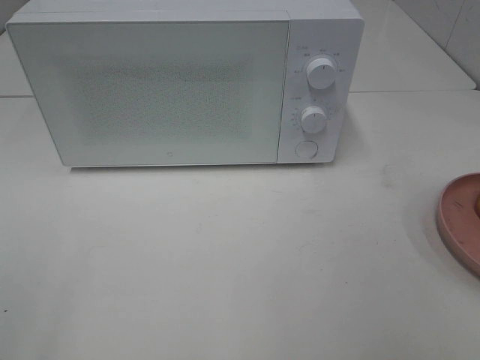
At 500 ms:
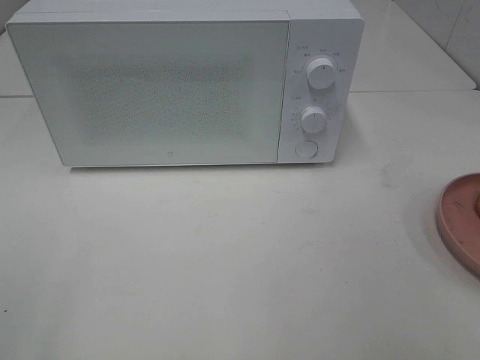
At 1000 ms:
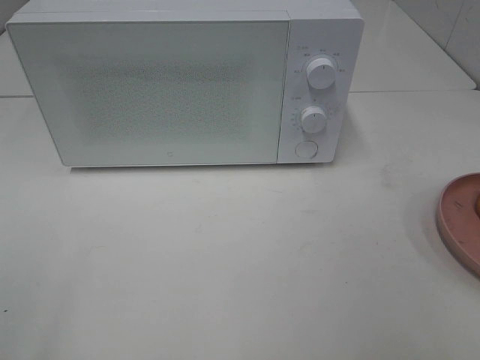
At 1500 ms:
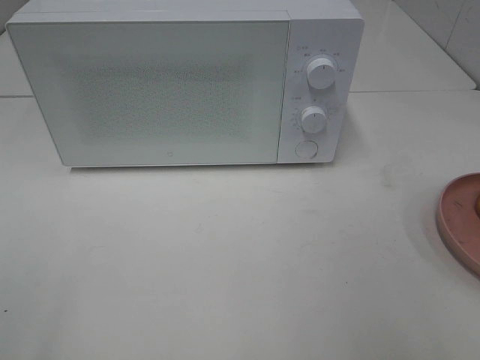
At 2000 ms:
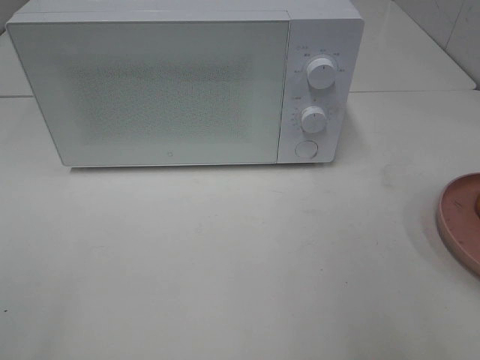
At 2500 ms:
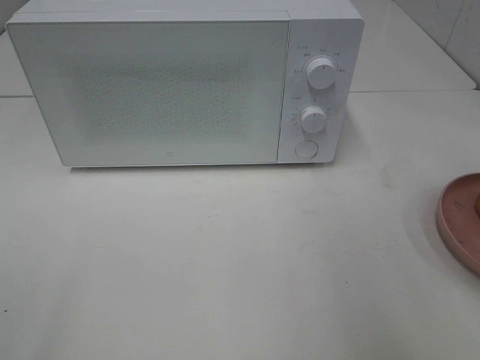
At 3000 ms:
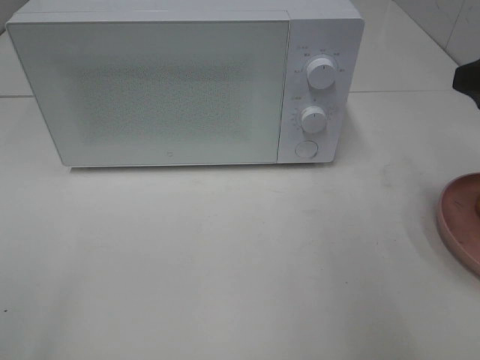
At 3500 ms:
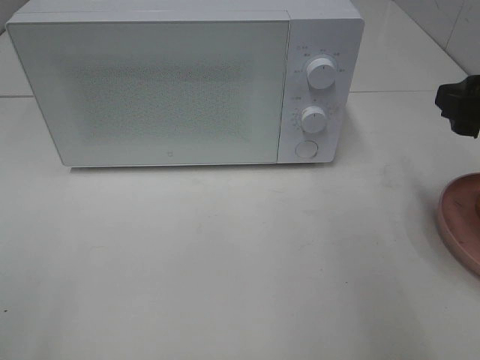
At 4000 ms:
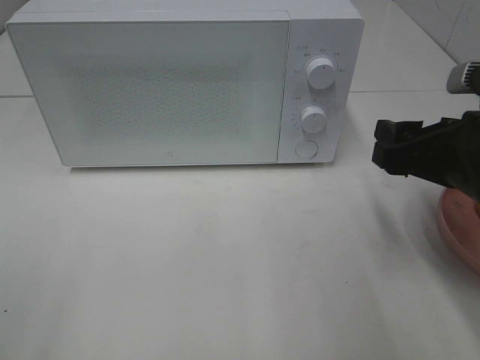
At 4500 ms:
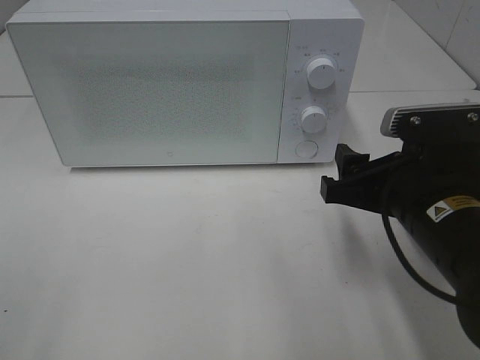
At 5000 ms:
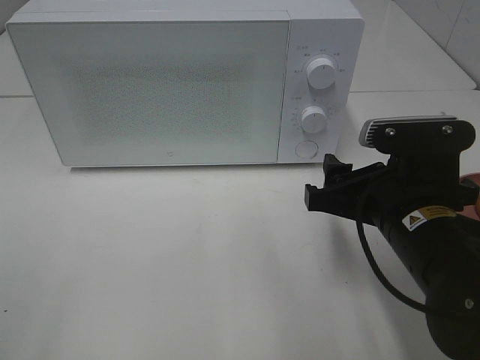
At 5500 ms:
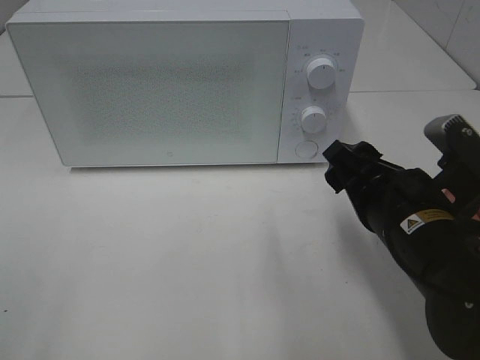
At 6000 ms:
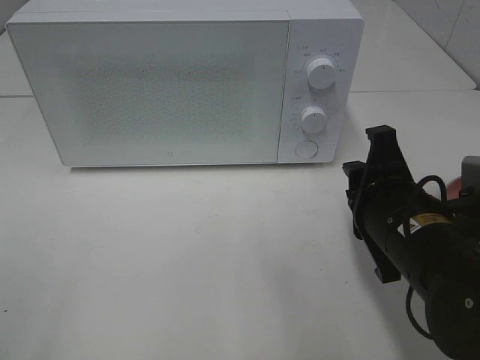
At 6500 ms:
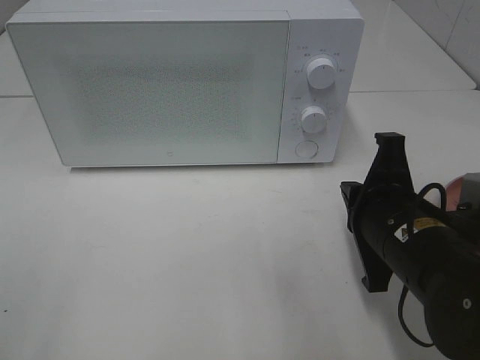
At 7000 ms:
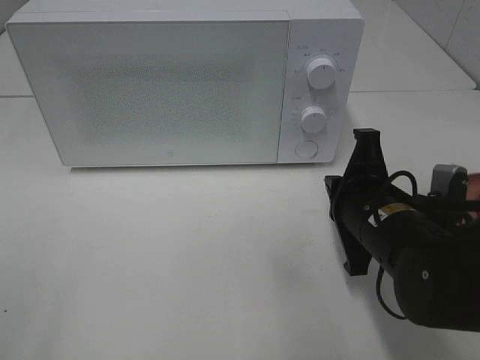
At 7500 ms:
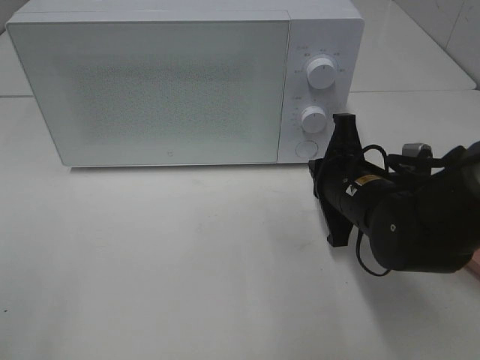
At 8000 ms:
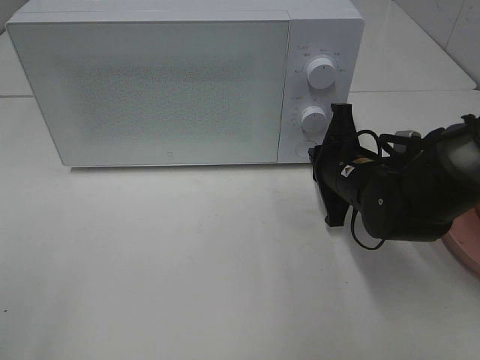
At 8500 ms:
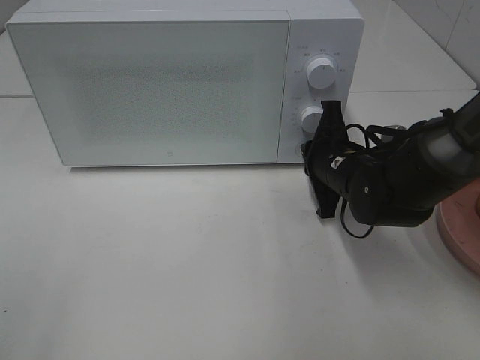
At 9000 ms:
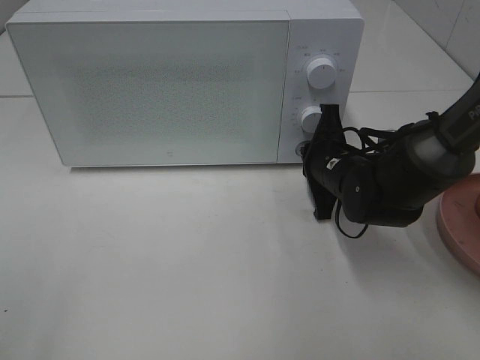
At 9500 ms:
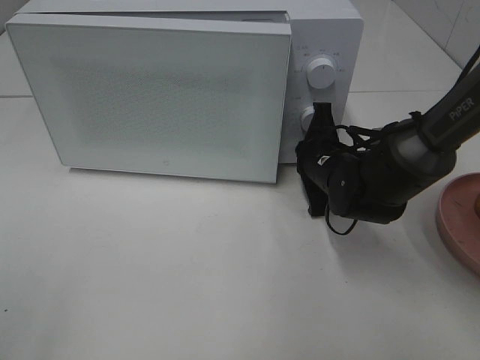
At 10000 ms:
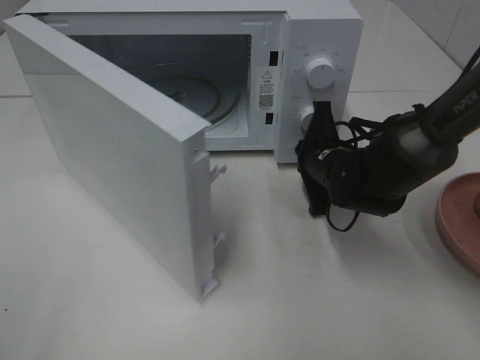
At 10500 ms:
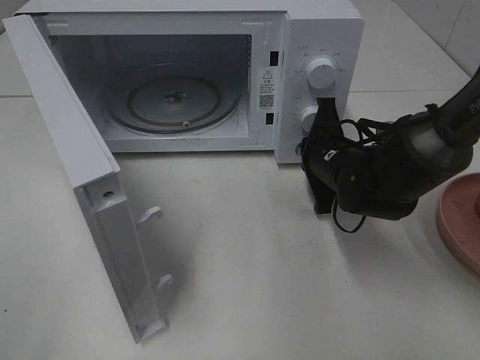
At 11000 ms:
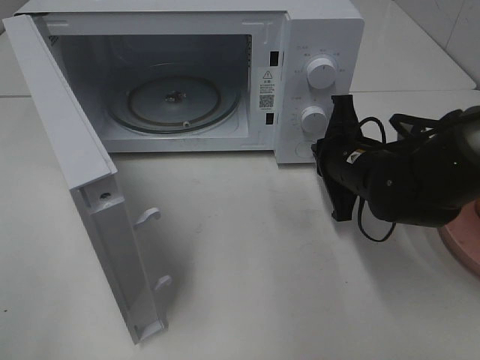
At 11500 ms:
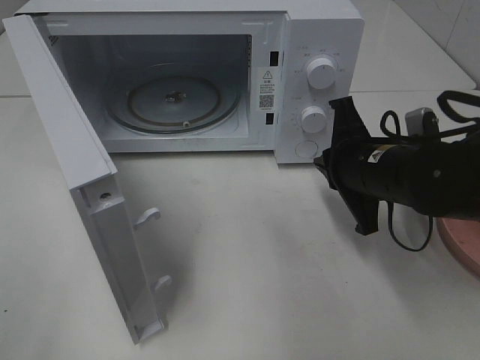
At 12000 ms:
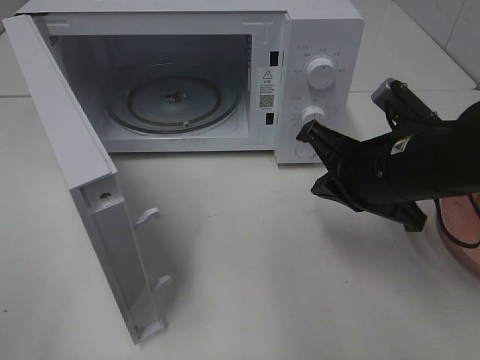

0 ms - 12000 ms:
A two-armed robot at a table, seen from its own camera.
Task of the whole recording: Heat the burger.
Step, 0 ms - 11000 ms: Right hand: press the switch.
2000 ms - 4000 ms: The right gripper is displaced downward, forward and to the left by approximately 15 cm.
4000 ms - 6000 ms: The right gripper travels to the left by roughly 5 cm, and closes up.
6000 ms - 8000 ms: The right gripper moves forward, approximately 10 cm, and closes its fingers.
8000 ms - 10000 ms: The right gripper changes place by approximately 5 cm.
10000 ms - 12000 ms: The right gripper is displaced backward and upward by some 15 cm.

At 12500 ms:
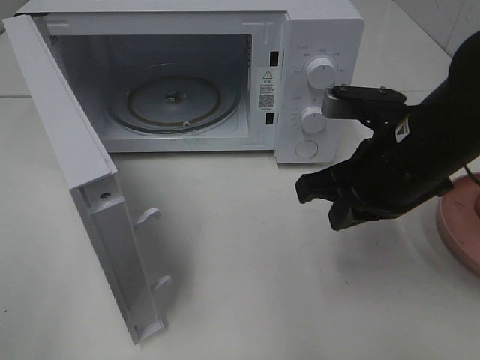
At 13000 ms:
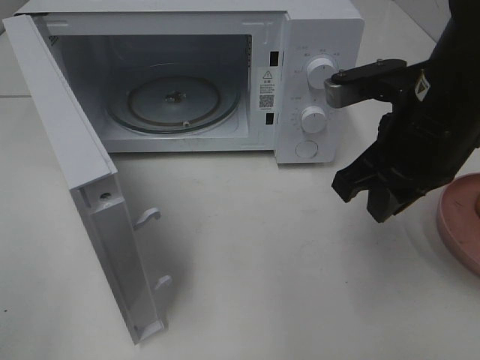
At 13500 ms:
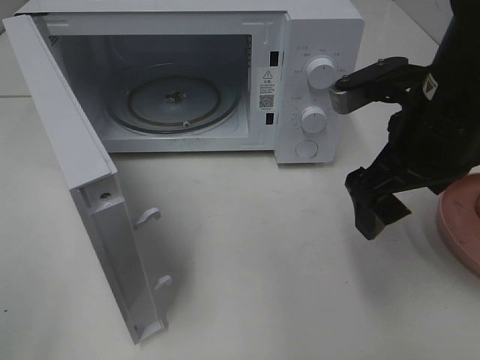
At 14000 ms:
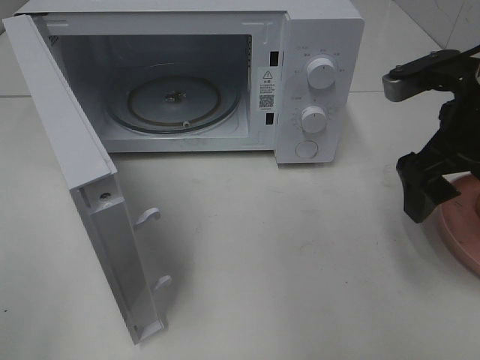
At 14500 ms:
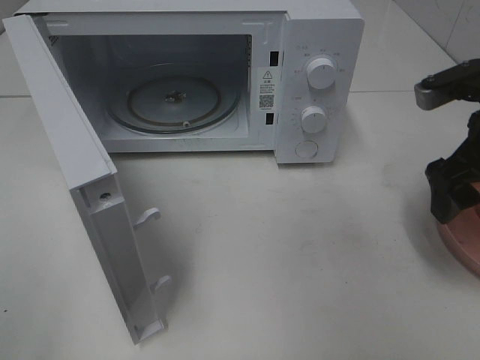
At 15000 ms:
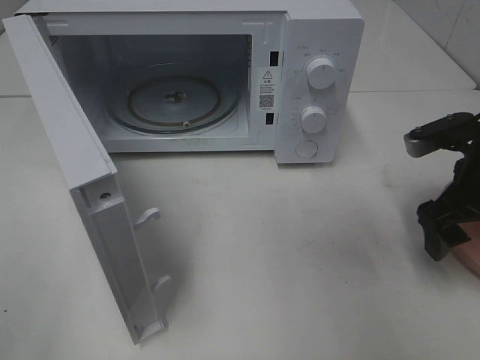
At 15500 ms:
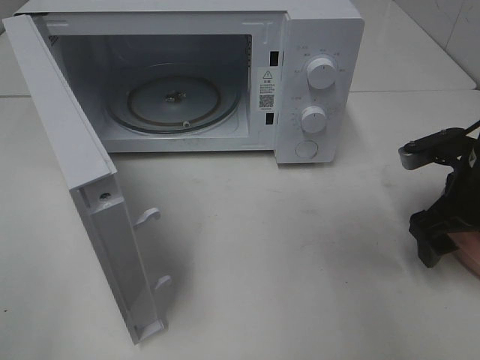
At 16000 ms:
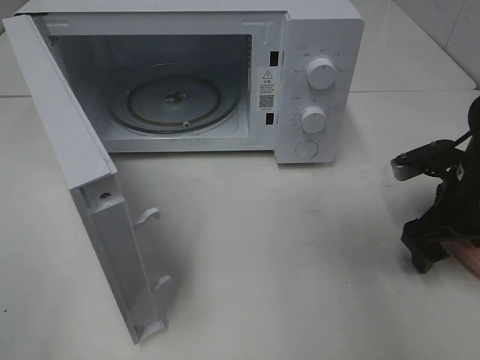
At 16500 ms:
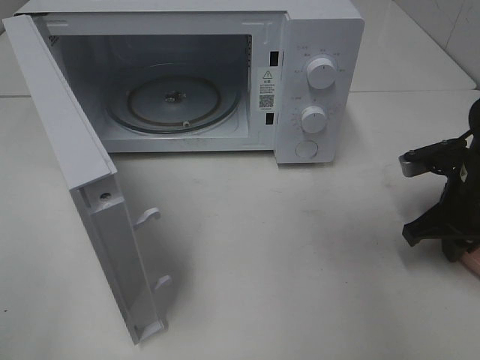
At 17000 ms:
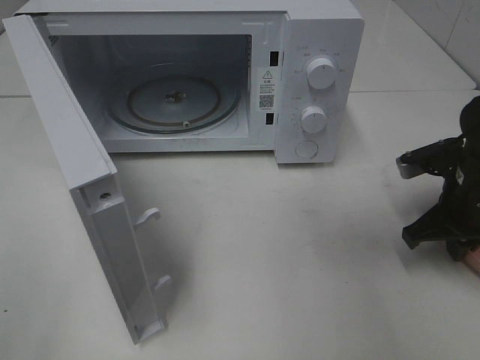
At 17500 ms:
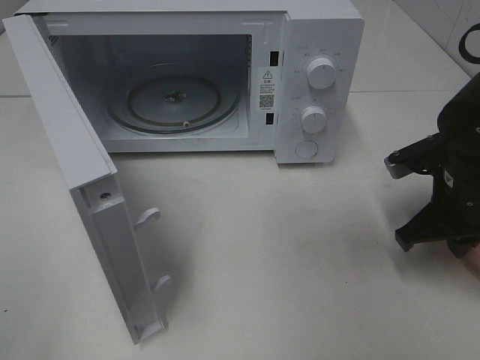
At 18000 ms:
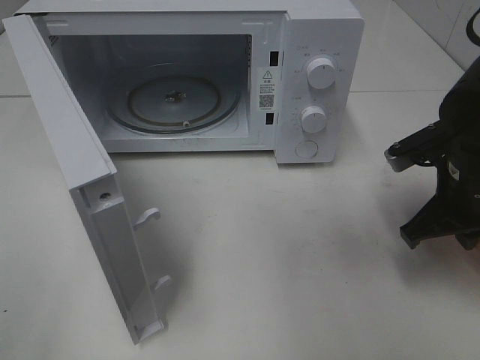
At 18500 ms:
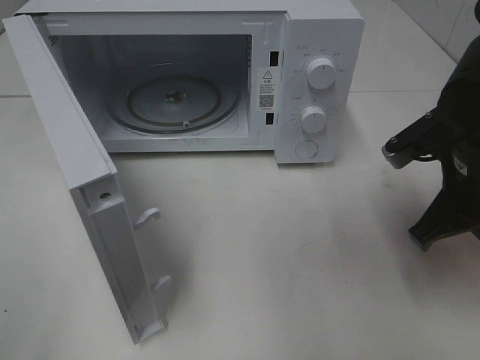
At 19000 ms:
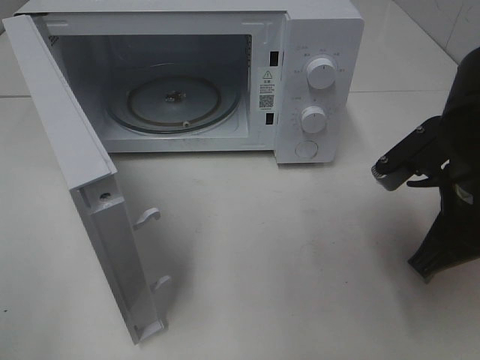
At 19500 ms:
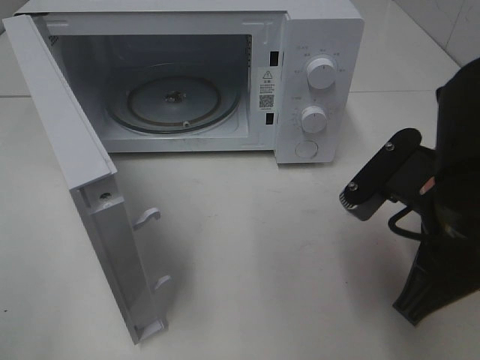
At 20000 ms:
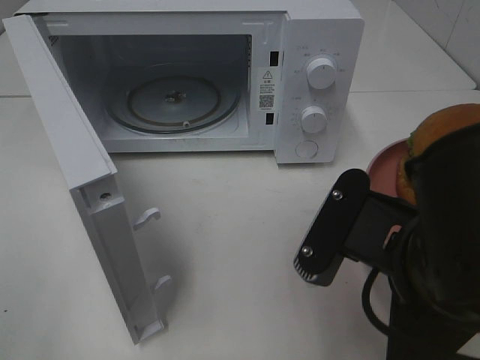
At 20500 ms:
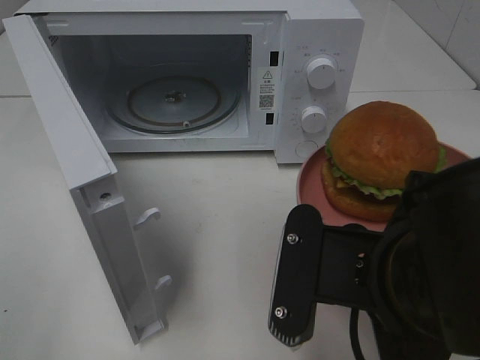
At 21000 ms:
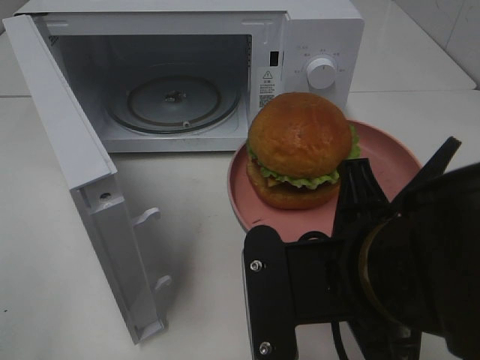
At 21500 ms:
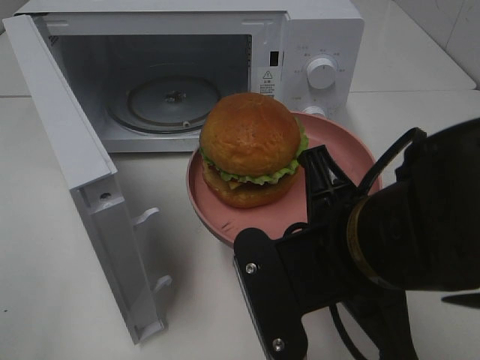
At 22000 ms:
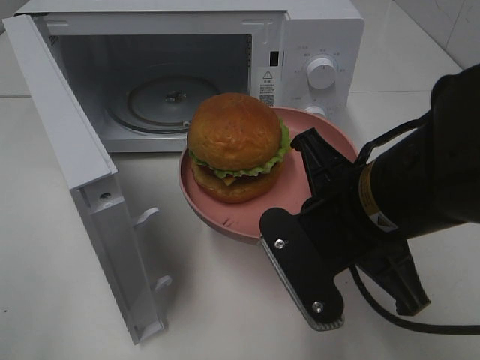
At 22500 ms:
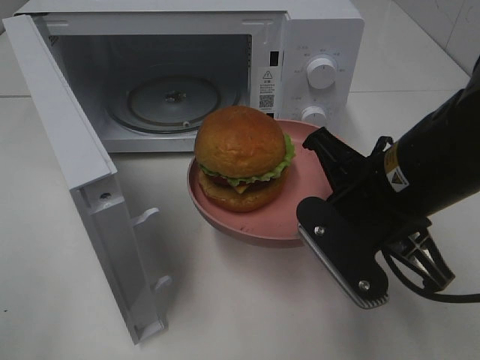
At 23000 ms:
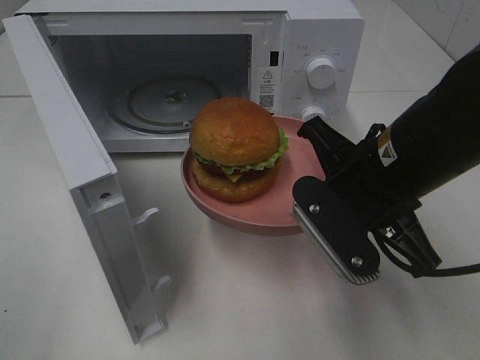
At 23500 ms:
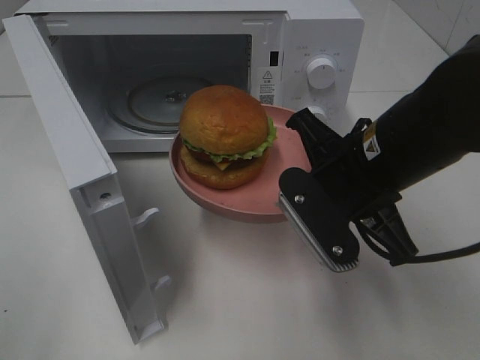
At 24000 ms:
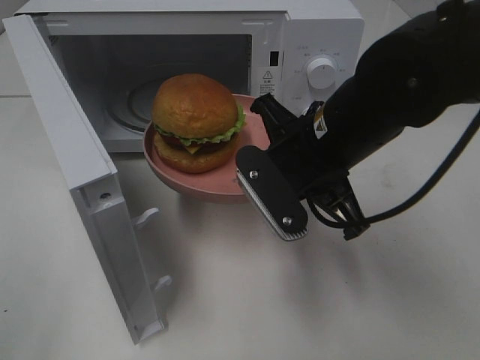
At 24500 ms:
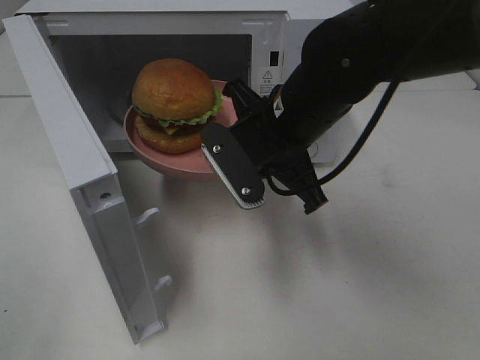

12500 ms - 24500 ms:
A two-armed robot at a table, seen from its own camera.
Task of the whole recording: Heat the burger.
Step, 12500 ms - 17000 ms: Right hand: grab the plate with the hamburger.
12500 ms - 14500 ms: The right gripper travels to the right by roughly 10 cm, and opens.
14500 ms - 16500 ms: The right gripper heads downward, covering some 10 cm, and closes its fingers.
16500 ms - 18500 ms: The right gripper is displaced upward and to the left by about 10 cm.
18500 ms - 20500 ms: The right gripper heads backward and to the left, covering roughly 20 cm.
20500 ms - 22500 ms: The right gripper moves forward, some 10 cm.
22500 ms - 24500 ms: The right gripper heads forward and to the left, covering about 10 cm.

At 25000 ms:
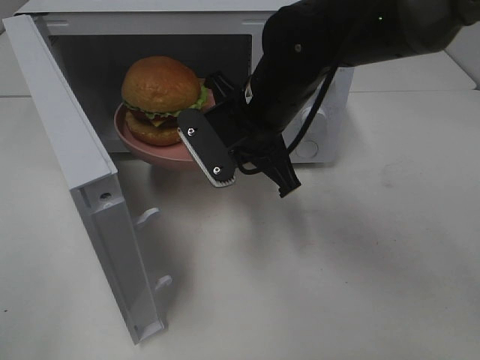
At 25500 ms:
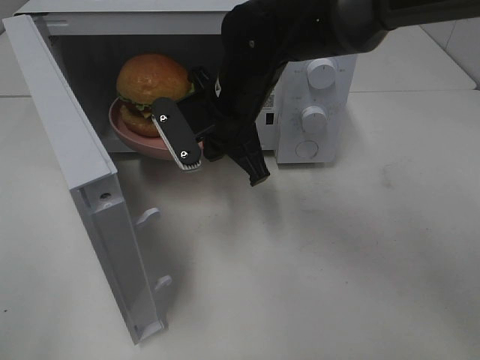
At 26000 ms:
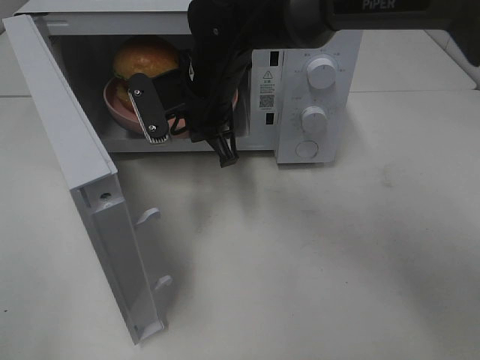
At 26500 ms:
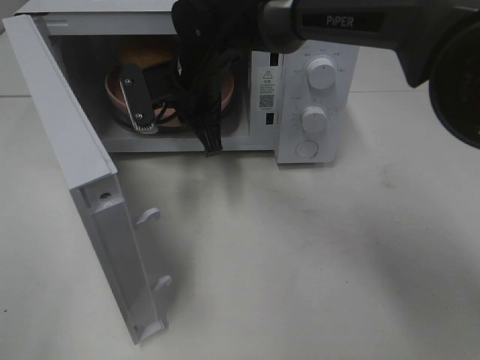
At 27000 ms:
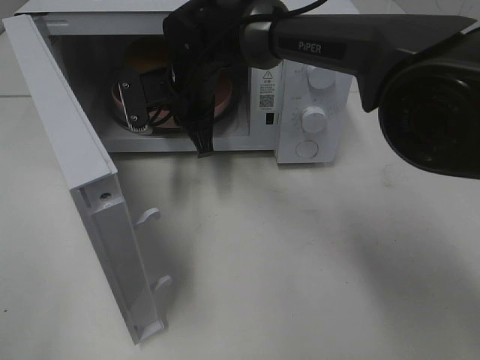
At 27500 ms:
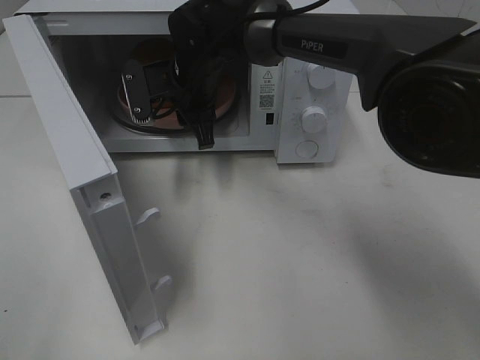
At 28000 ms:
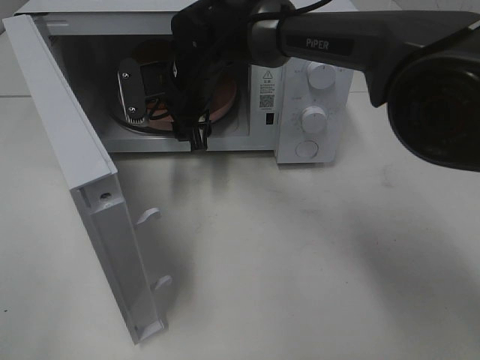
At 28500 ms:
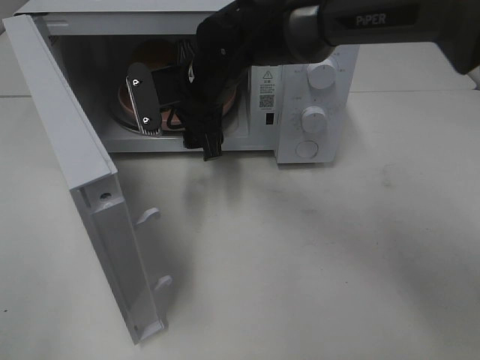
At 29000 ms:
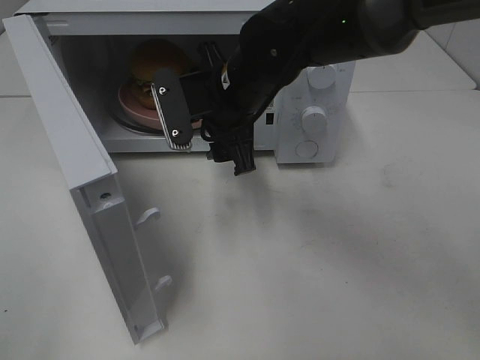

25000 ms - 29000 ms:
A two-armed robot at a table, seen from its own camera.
Task of the whole recording: Heat the burger.
Step, 25000 ms - 27500 ms: Right hand: place the plate in the microwave.
25000 ms - 27000 ms: The right gripper heads forward and to the left, covering roughly 15 cm.
27000 ms - 29000 ms: The right gripper moves backward and to the right, approximately 10 cm, and opens its fingers.
